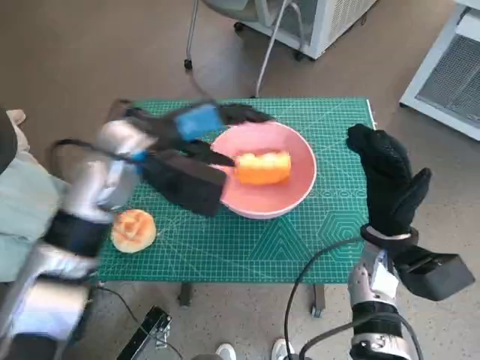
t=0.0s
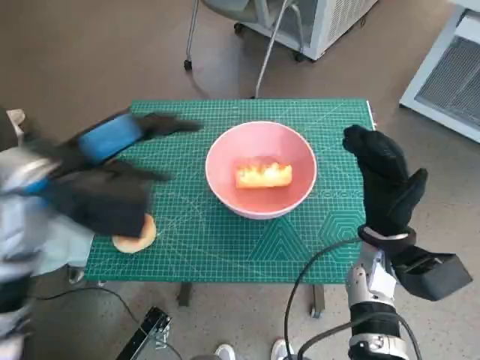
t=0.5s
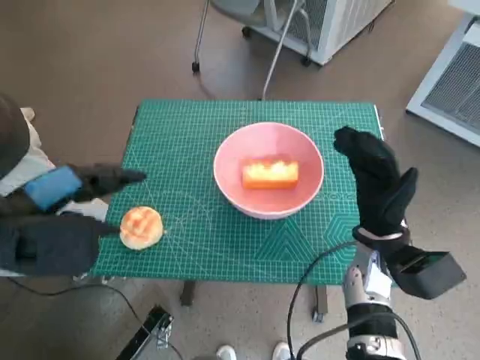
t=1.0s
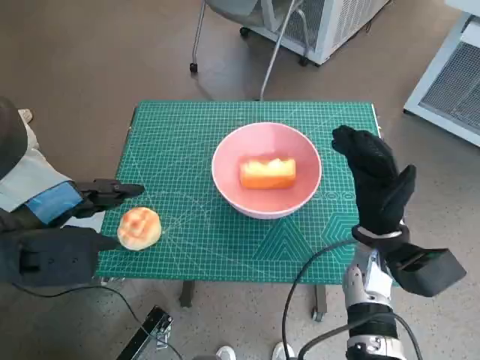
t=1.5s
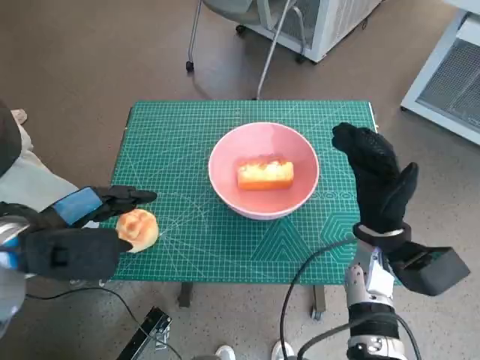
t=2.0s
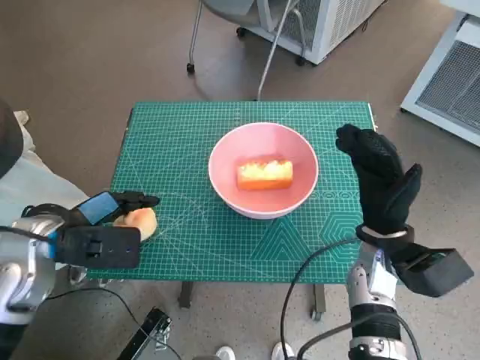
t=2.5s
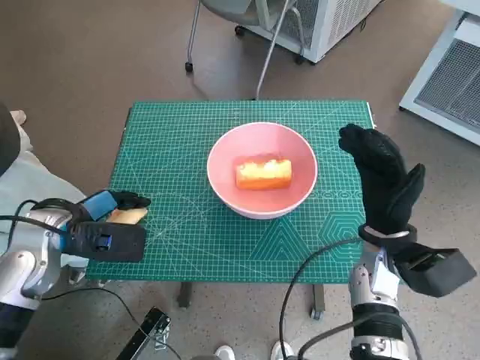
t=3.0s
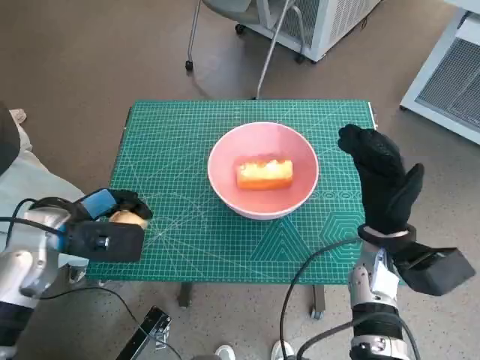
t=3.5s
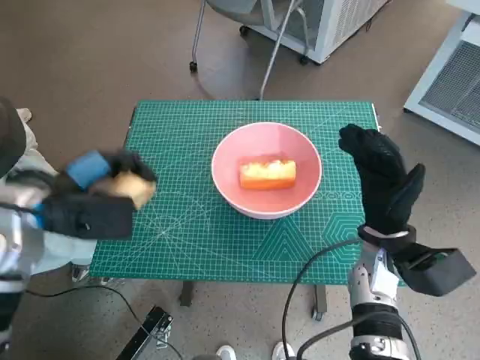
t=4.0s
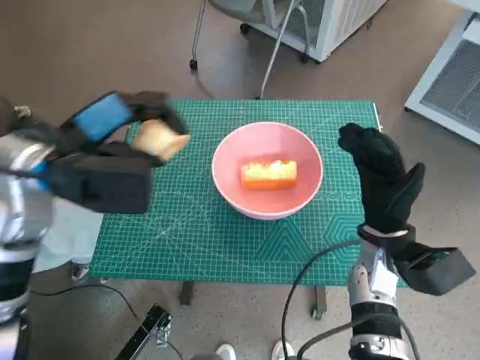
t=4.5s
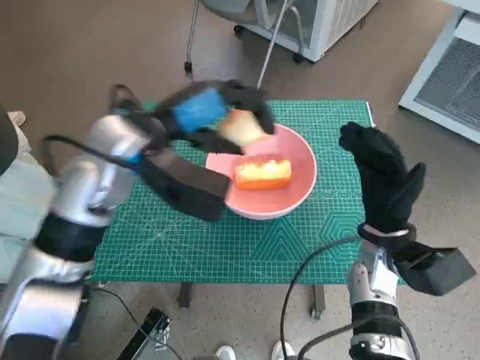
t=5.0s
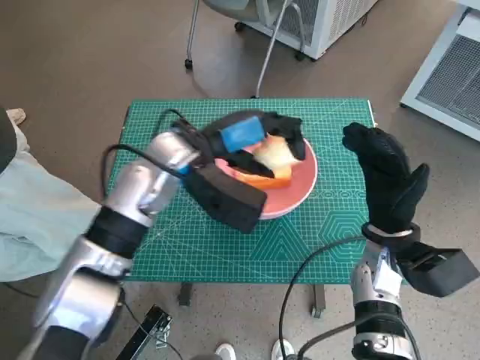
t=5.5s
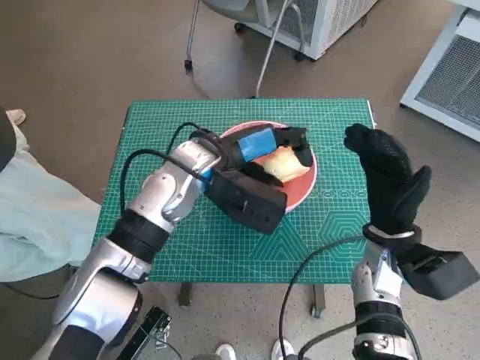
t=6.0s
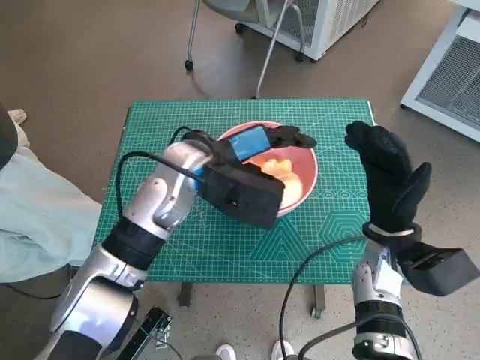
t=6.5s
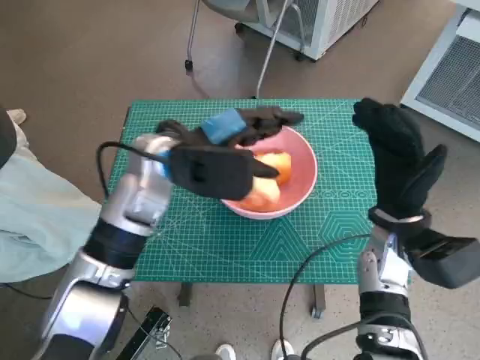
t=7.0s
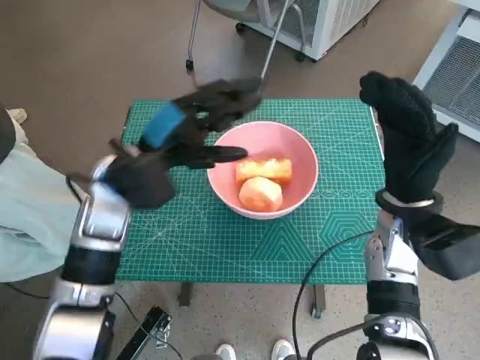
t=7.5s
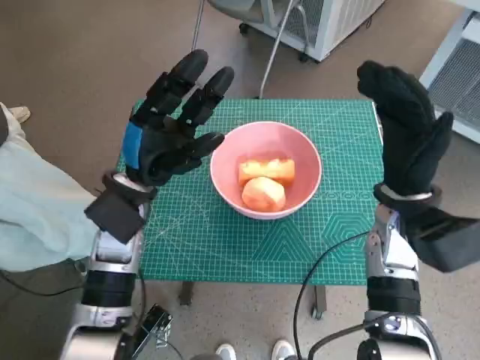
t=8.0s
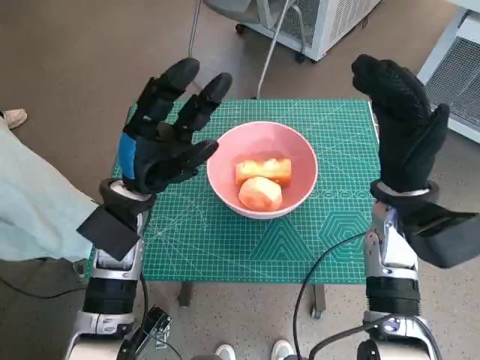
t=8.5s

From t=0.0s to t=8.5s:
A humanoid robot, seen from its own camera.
Task of the whole recording: Push the bowl to the center of the table and put the bread into the bowl.
Step, from t=0.0s to t=3.0s: Grasp the round bread with left hand.
Step, from t=3.5s to t=6.5s: Place the round bread in pink bowl with left hand.
From t=0.0s to t=2.0s: The left hand goes about 15 cm to the left and backward.
From t=4.0s to t=6.5s: The left hand goes about 20 cm to the right.
From t=6.5s to t=8.5s: The right hand moves upward, roughly 10 cm. Meanwhile the left hand moves to the left, roughly 10 cm.

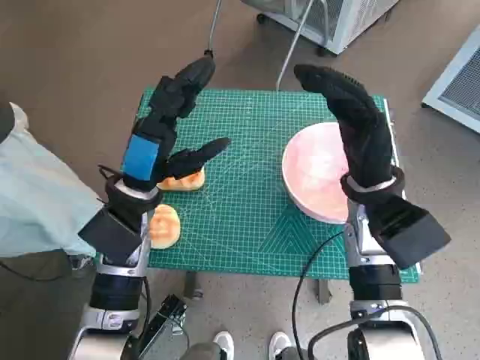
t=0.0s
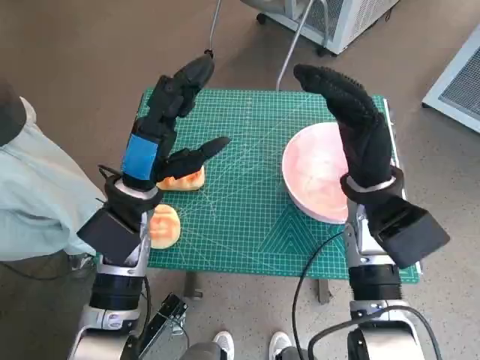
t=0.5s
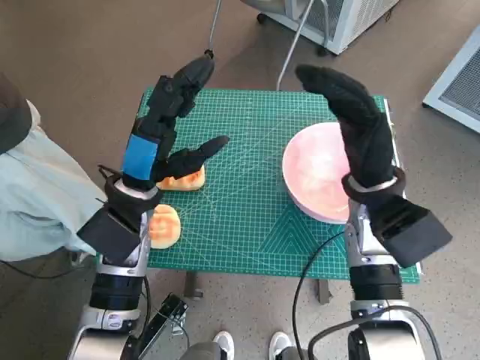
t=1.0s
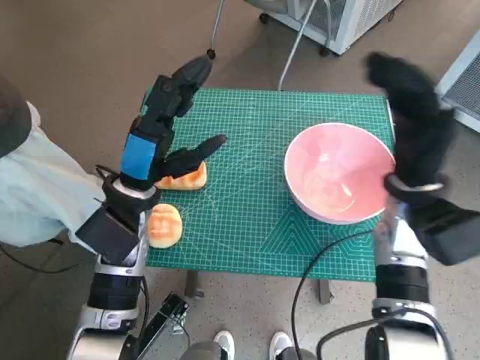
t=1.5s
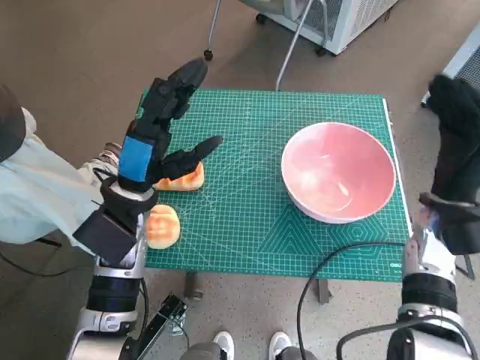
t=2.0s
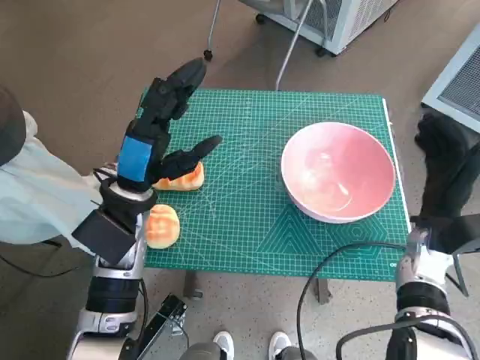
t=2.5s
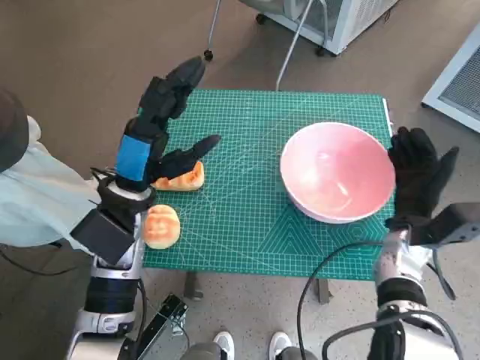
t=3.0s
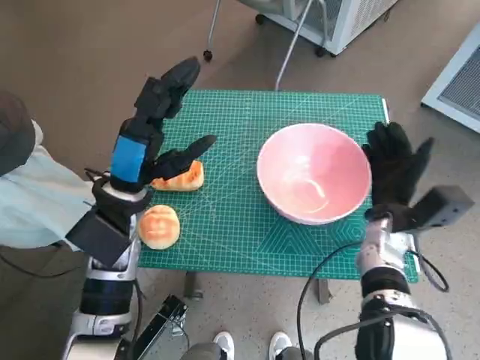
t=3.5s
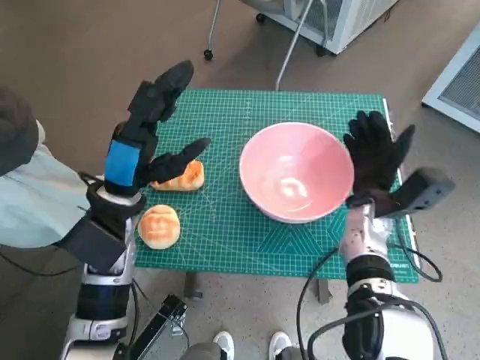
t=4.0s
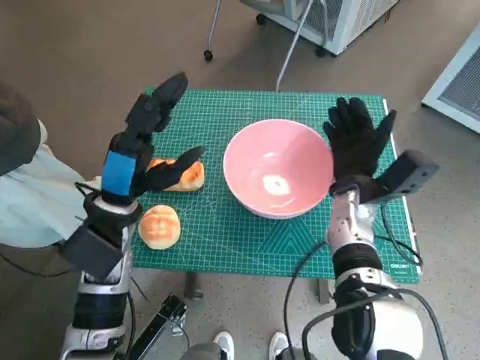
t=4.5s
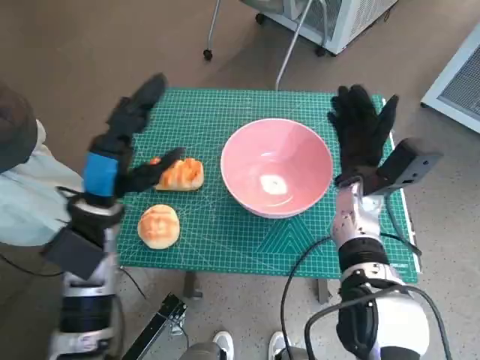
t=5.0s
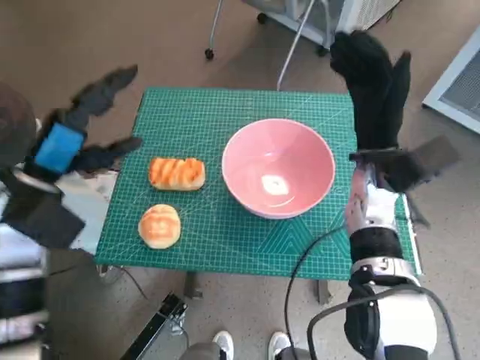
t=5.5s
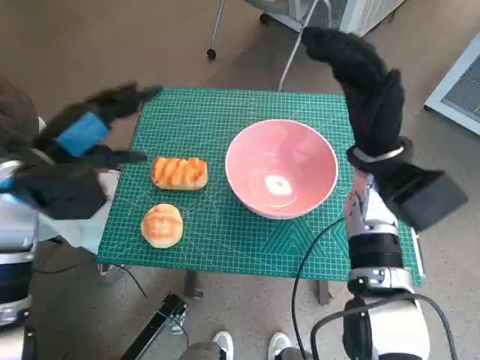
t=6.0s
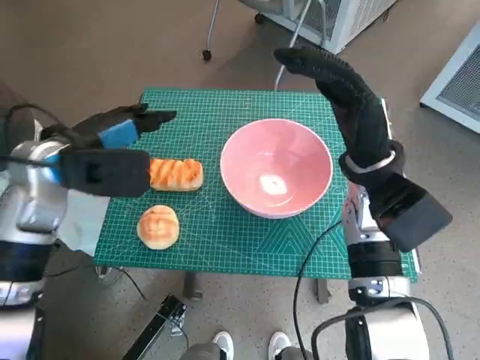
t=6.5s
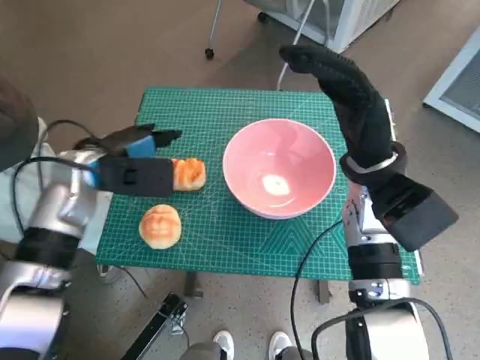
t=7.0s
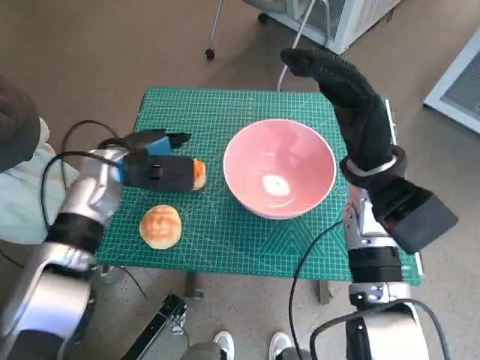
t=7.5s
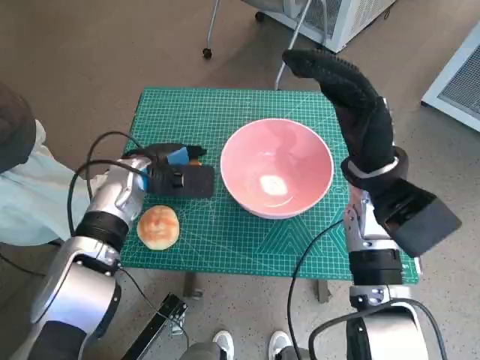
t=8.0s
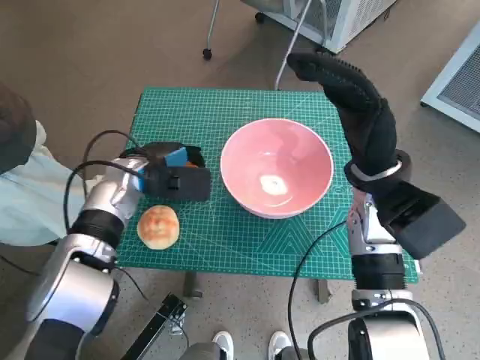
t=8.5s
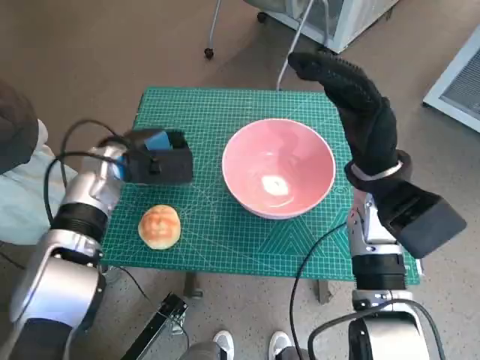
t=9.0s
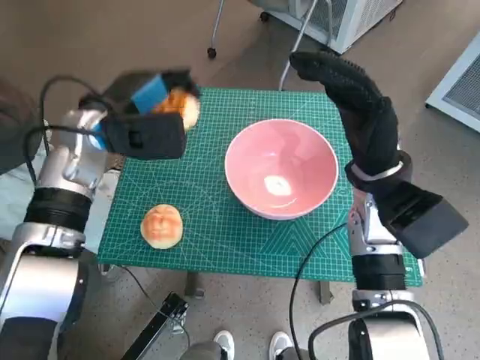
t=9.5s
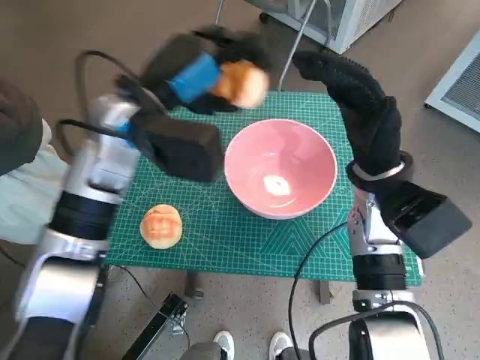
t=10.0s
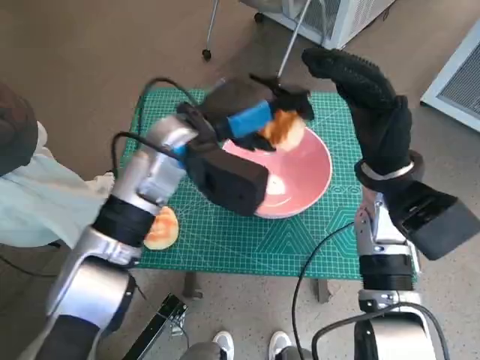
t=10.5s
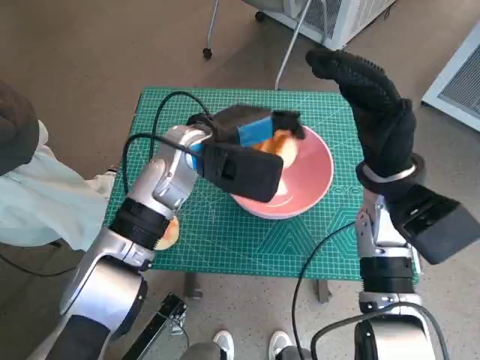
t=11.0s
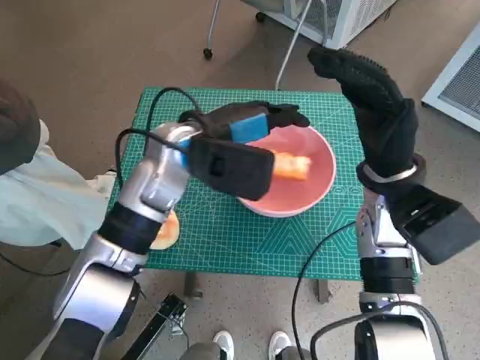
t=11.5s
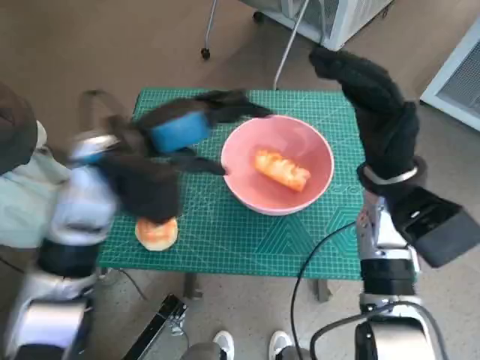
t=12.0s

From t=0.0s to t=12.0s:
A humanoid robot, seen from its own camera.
Task of the whole recording: Push the bowl to the center of the table and put the bread into the bowl.
Step, from t=0.0s to t=4.5s: Move the pink bowl to the center of table with right hand.
Step, from t=5.5s to t=8.0s: Grasp the long bread with left hand.
Step, from t=8.5s to t=11.5s: Place the long bread in pink bowl with left hand.
From t=2.0s to t=4.0s: The right hand goes approximately 10 cm to the left and downward.
From t=4.0s to t=6.0s: The left hand is displaced to the left and upward by approximately 10 cm; the right hand goes about 10 cm upward.
From t=6.0s to t=8.0s: The left hand travels downward, to the right and forward by some 15 cm.
From t=8.0s to t=10.0s: The left hand is displaced upward by approximately 15 cm.

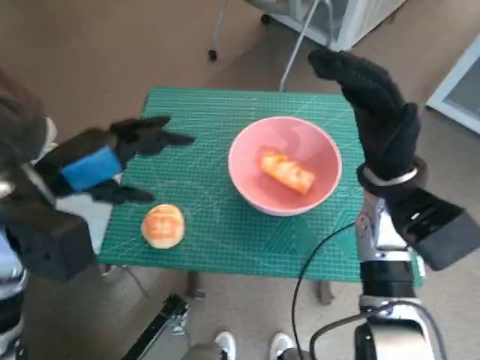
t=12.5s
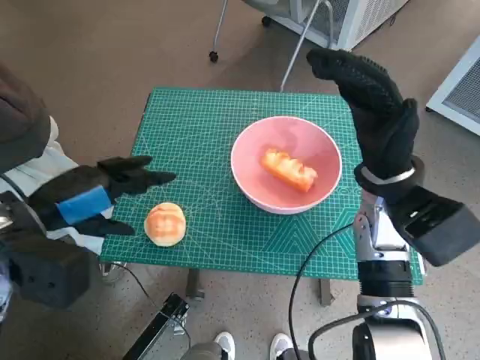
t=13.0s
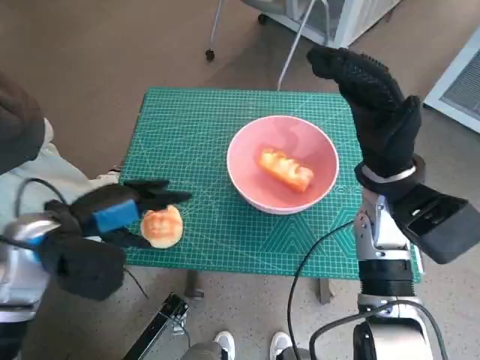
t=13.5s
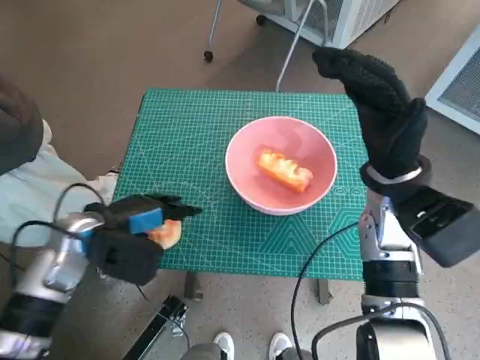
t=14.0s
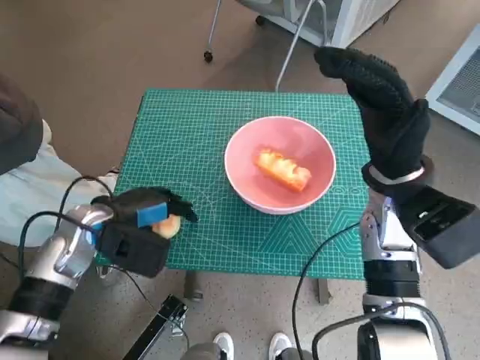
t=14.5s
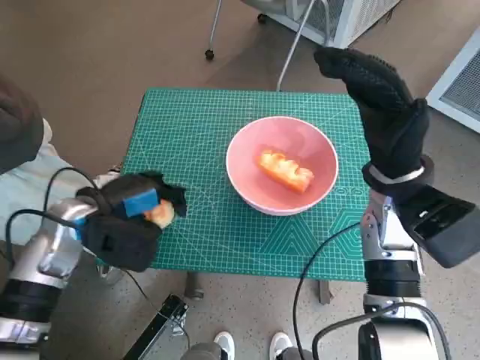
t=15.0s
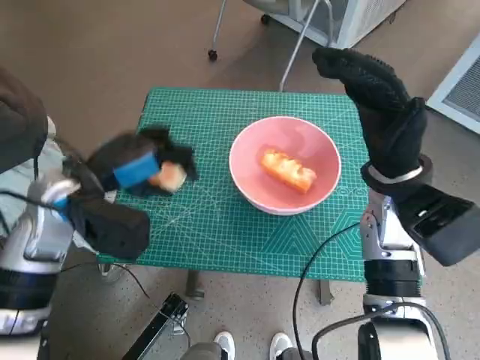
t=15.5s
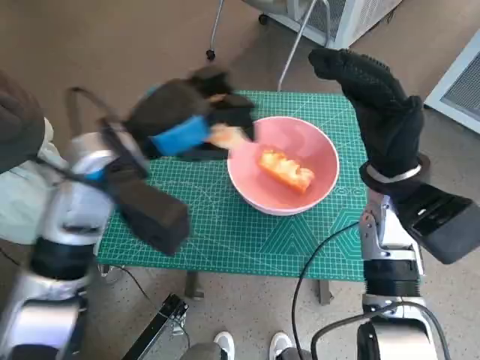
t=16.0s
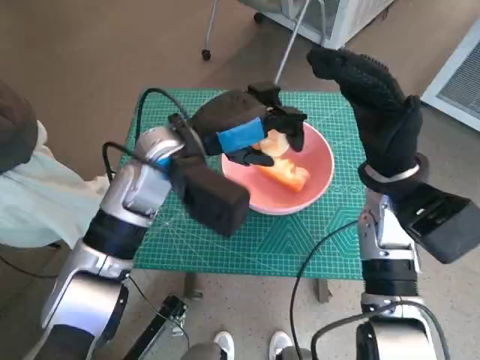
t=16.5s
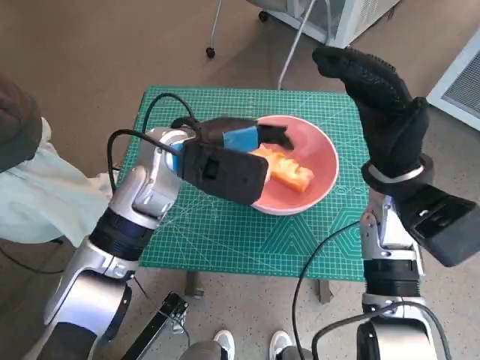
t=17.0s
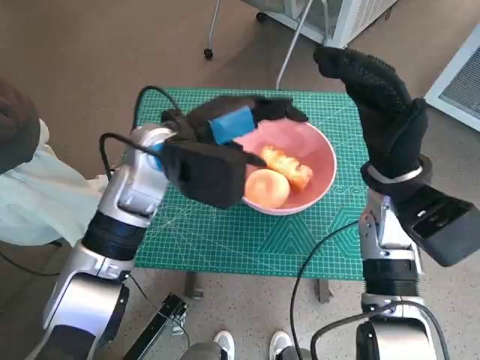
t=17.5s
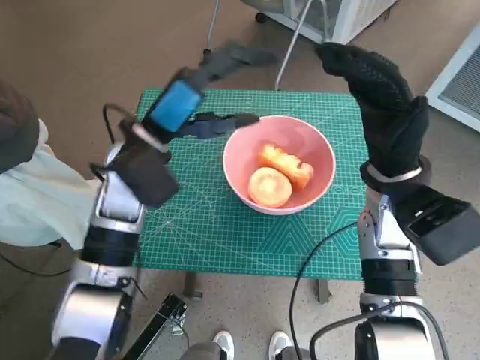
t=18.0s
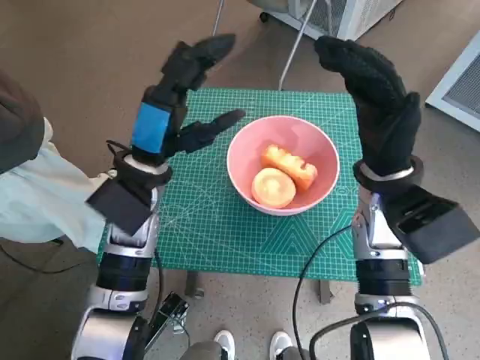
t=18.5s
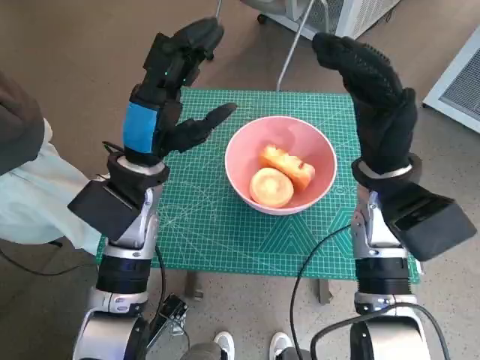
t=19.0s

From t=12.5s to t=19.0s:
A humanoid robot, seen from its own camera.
Task of the whole recording: Push the bowl to the center of the table and put the bread into the bowl.
Step, from t=12.5s to t=14.5s: Grasp the round bread with left hand.
Step, from t=15.0s to t=17.0s: Place the round bread in pink bowl with left hand.
From t=12.5s to t=14.5s: The left hand travels downward by some 15 cm.
From t=14.5s to t=17.0s: The left hand heads to the right, upward and forward, covering roughly 15 cm.
From t=17.0s to t=19.0s: The left hand changes place by some 5 cm.
